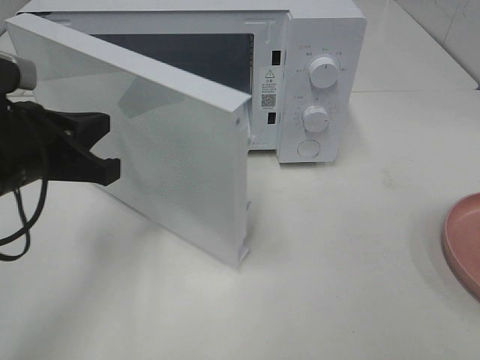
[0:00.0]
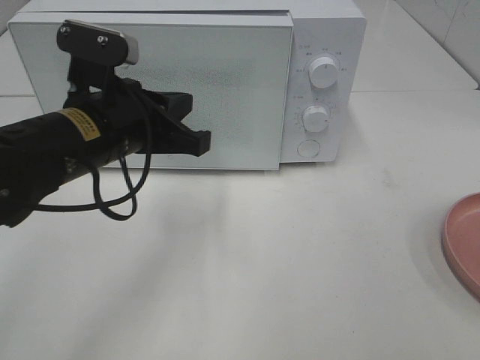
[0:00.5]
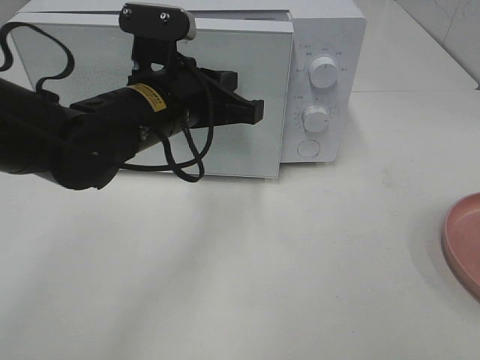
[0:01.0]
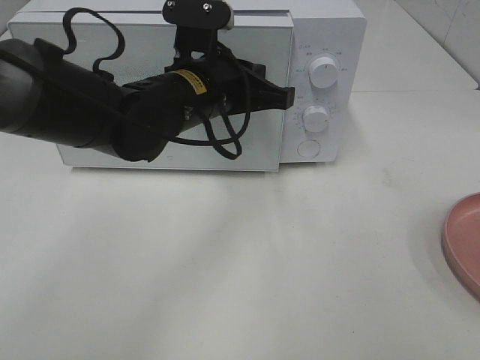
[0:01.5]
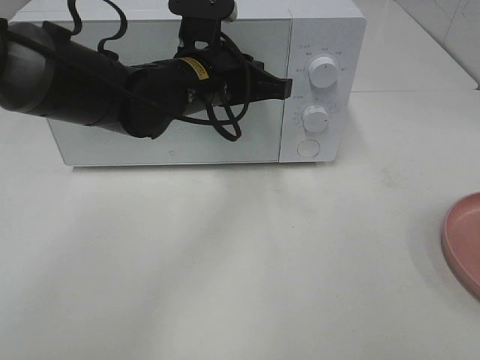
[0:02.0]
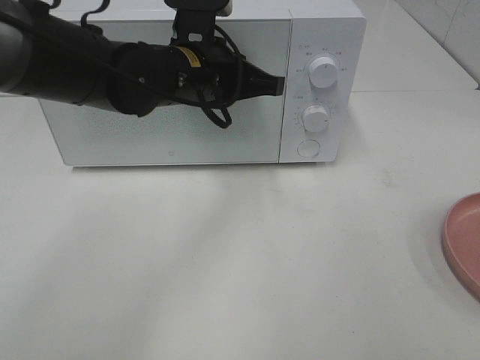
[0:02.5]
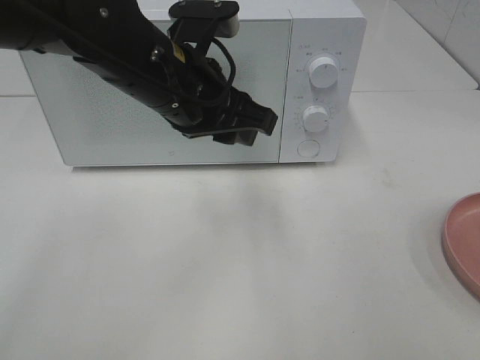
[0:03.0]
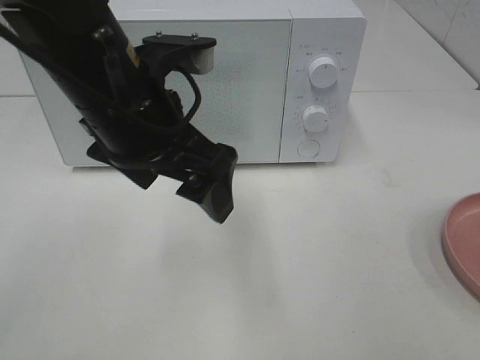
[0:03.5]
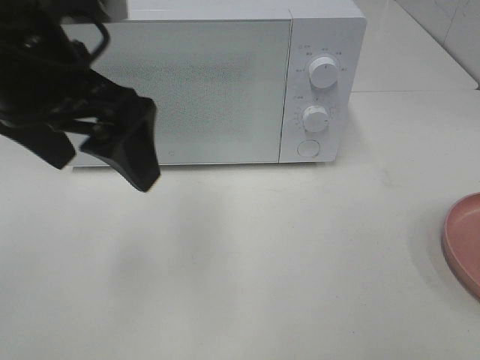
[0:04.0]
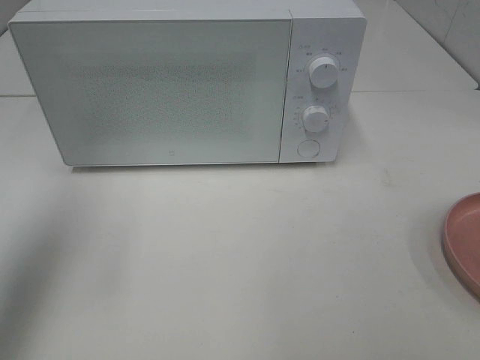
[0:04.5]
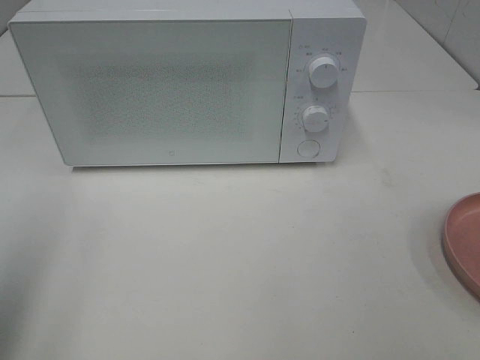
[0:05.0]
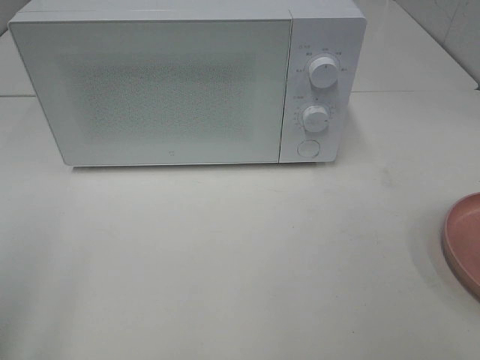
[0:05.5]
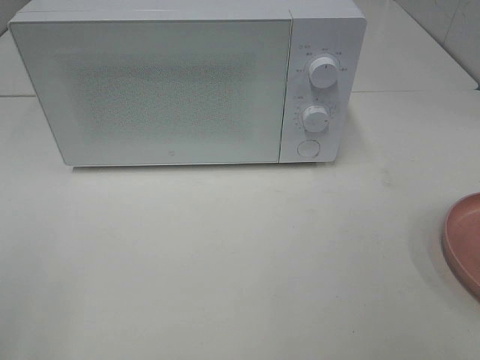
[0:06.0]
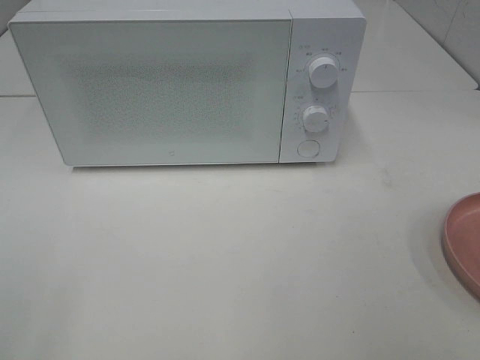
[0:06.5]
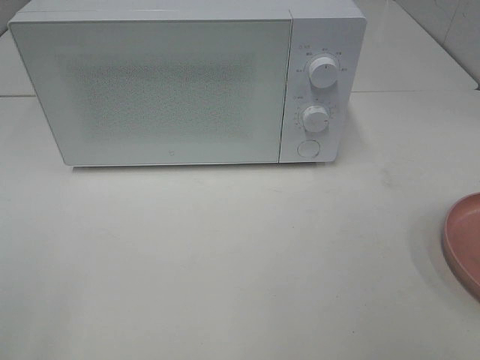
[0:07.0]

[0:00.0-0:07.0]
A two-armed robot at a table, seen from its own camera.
Task of the whole recording: Heat the burger.
Step, 0:00.0 to 0:02.5: Left hand: close the microwave door.
0:00.0 to 0:02.0: The left gripper travels to the right and forward by about 20 cm.
0:02.0 to 0:03.5: The left gripper goes approximately 15 cm backward and upward, and opens.
0:03.5 to 0:05.0: The left gripper heads to the left and backward, covering roughly 25 cm.
0:05.0 to 0:07.0: The left gripper heads backward, covering about 15 cm.

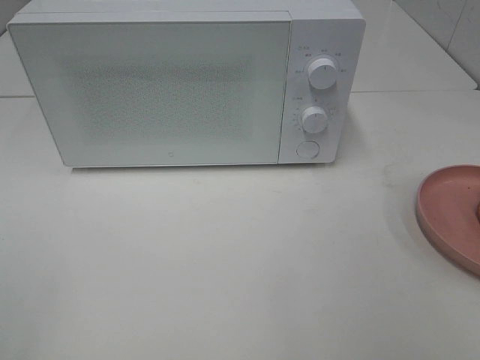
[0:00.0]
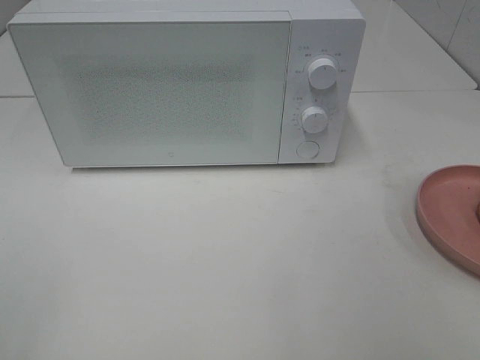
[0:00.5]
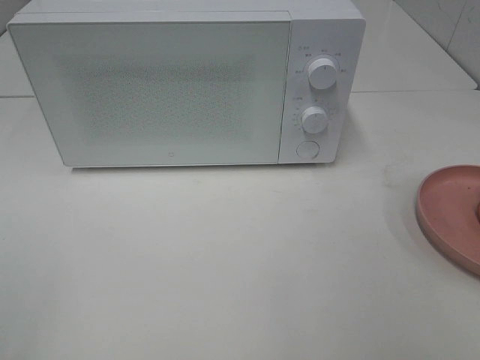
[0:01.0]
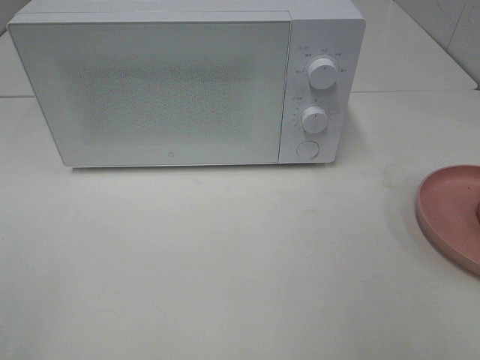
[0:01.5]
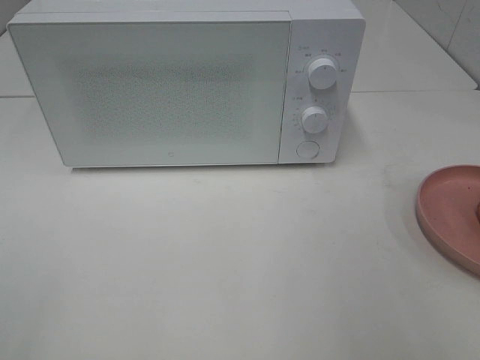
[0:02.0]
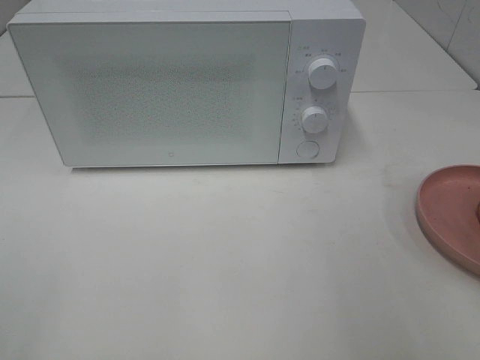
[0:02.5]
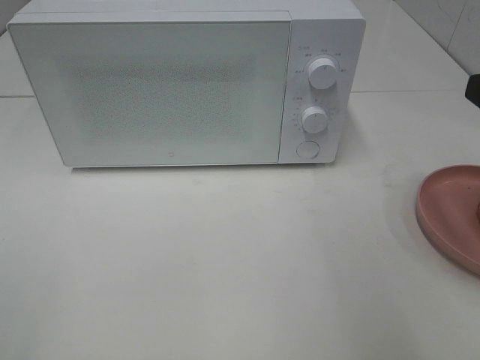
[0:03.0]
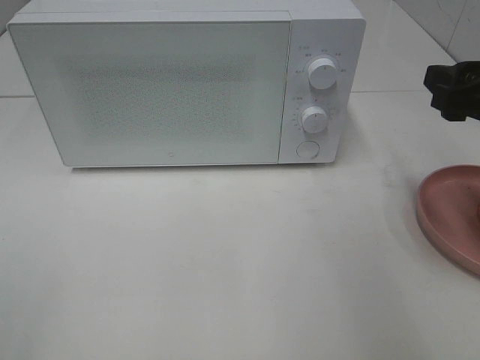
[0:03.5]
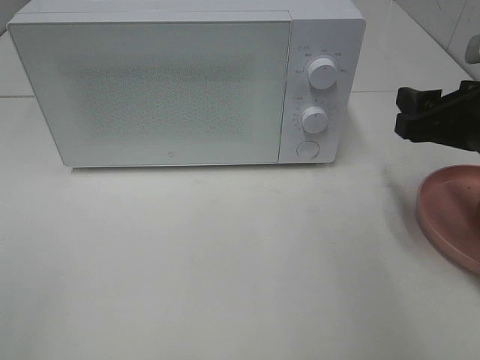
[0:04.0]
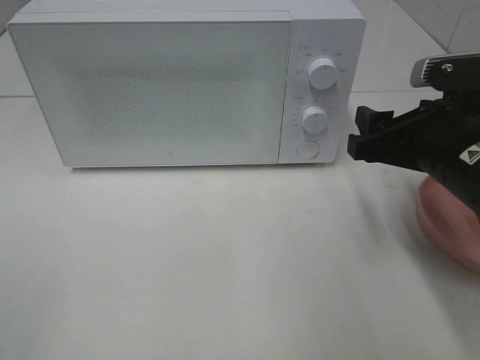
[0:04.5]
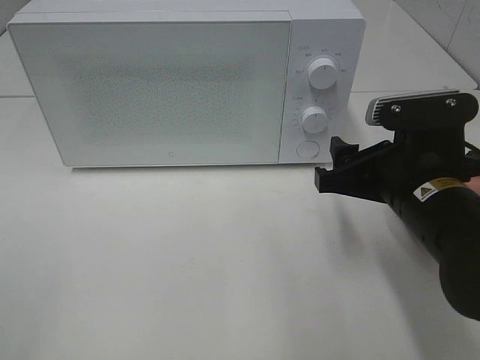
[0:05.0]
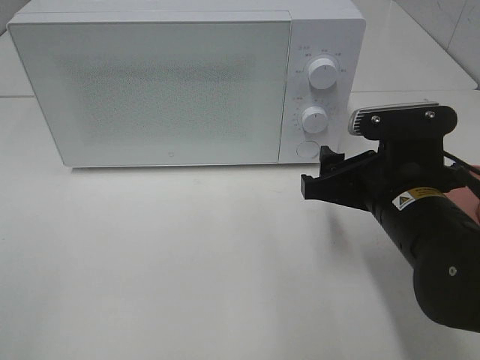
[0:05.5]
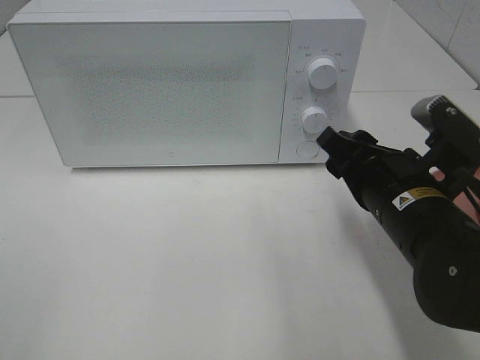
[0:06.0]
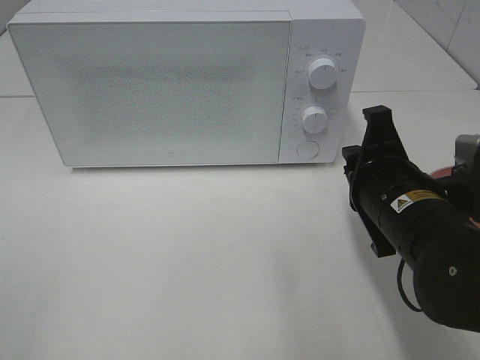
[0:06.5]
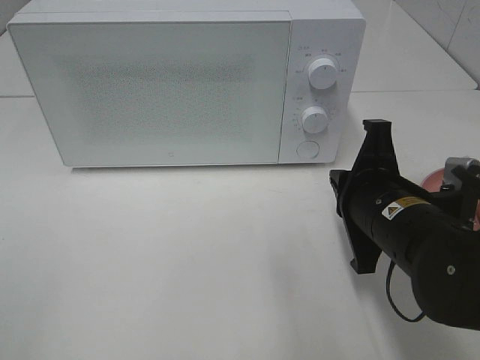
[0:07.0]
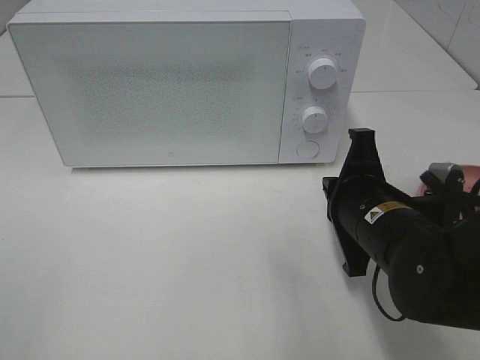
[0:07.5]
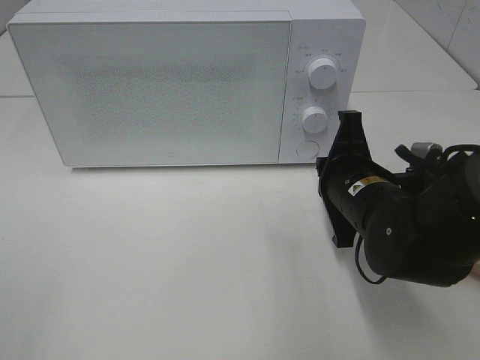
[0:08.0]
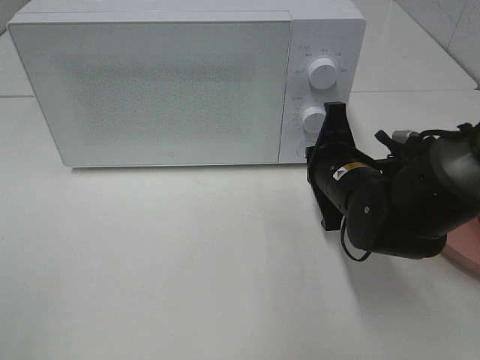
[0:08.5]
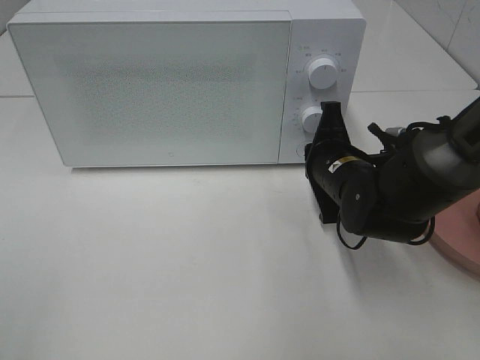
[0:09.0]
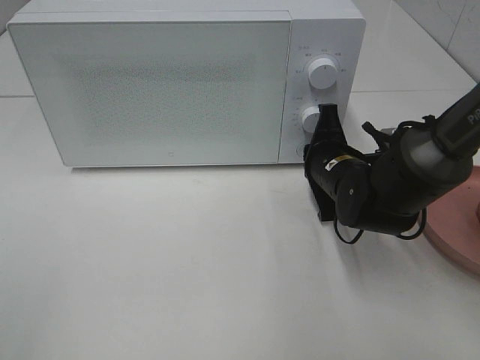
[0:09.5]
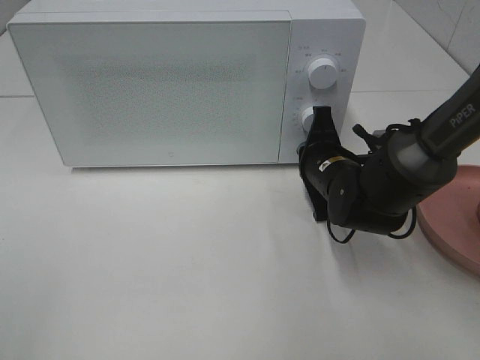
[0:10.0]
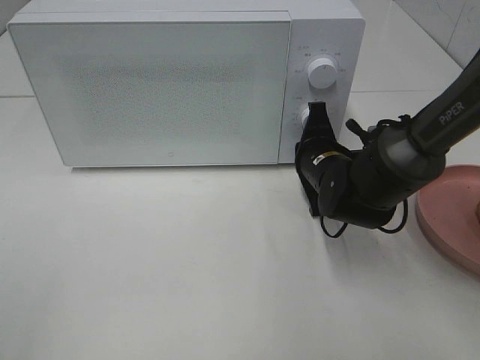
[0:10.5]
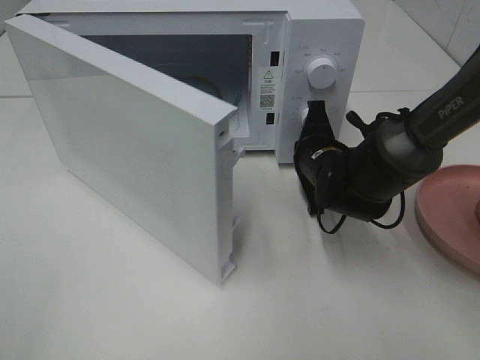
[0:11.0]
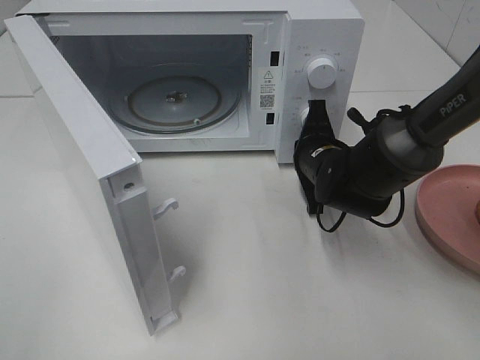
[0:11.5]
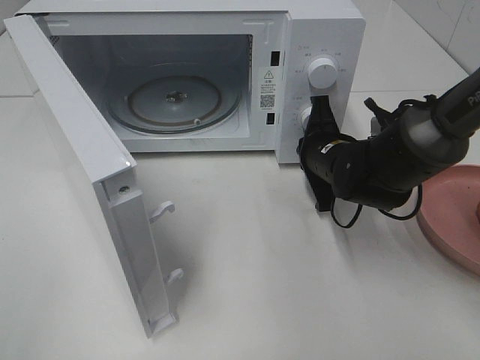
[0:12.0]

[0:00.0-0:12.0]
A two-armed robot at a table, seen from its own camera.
Task of the whole recording: Heat the burger.
0:02.0 to 0:04.0: The right gripper moves forward and downward, some 20 cm.
0:04.0 to 0:06.0: The right gripper goes approximately 10 cm to the left and downward.
0:06.0 to 0:08.0: The right gripper ends up roughly 5 cm from where it was, and closes.
0:08.0 to 0:10.0: The right gripper heads forward, covering about 10 cm.

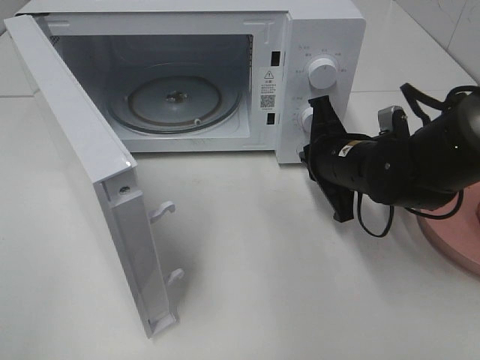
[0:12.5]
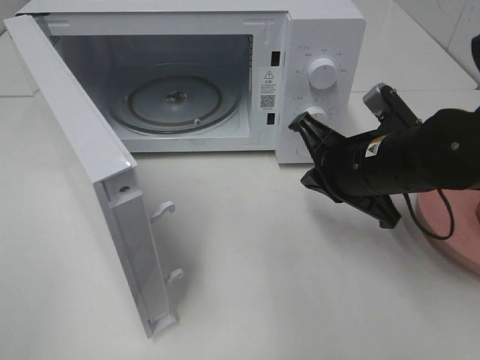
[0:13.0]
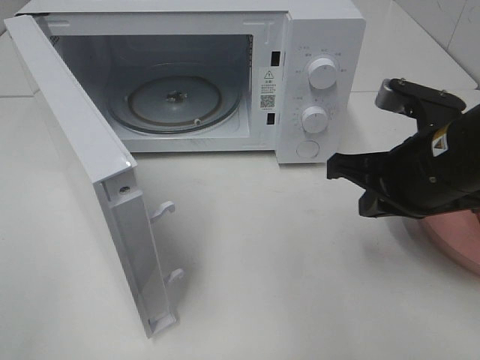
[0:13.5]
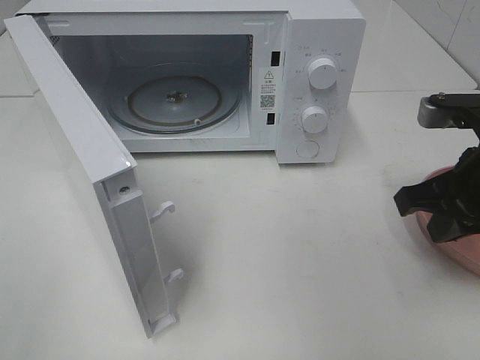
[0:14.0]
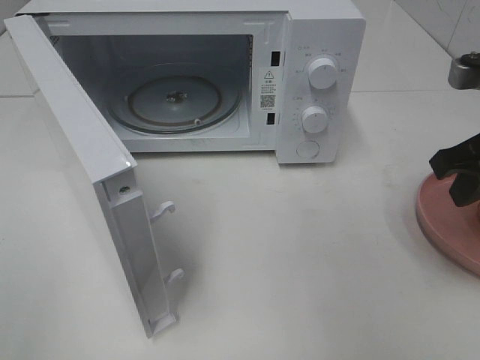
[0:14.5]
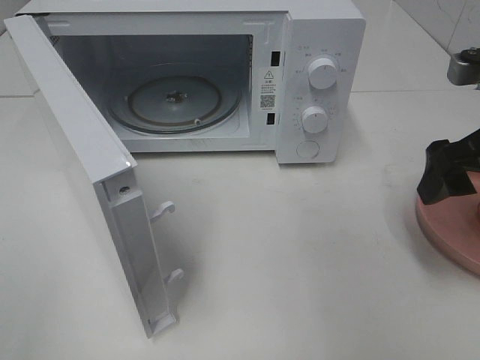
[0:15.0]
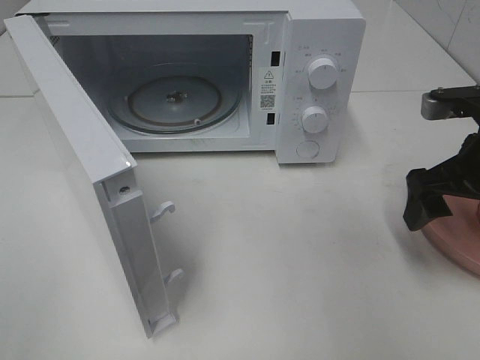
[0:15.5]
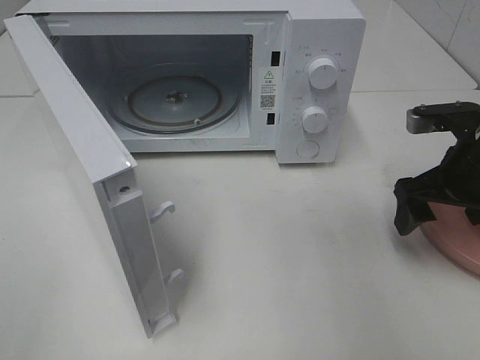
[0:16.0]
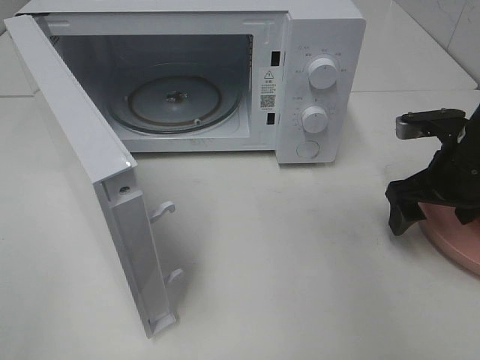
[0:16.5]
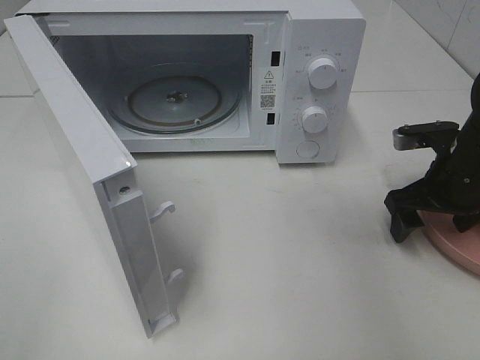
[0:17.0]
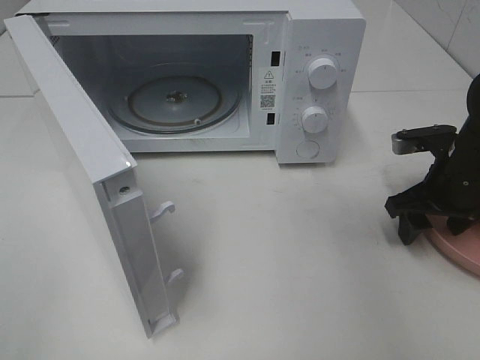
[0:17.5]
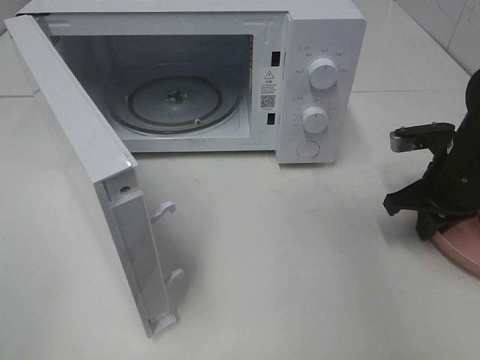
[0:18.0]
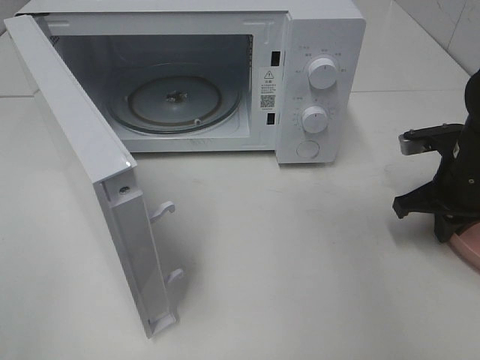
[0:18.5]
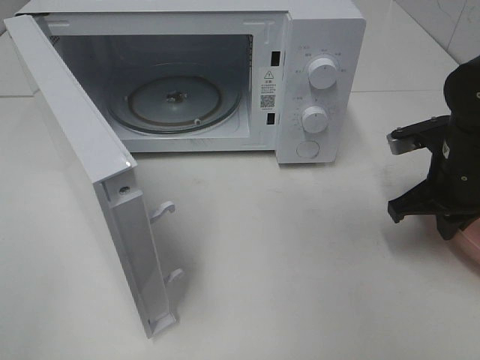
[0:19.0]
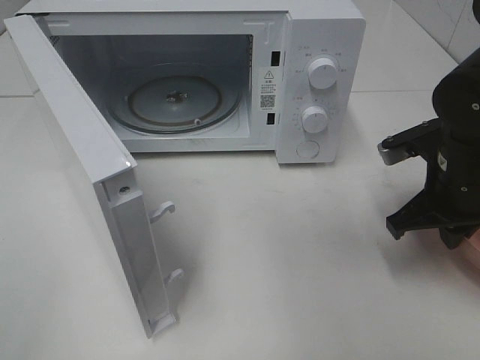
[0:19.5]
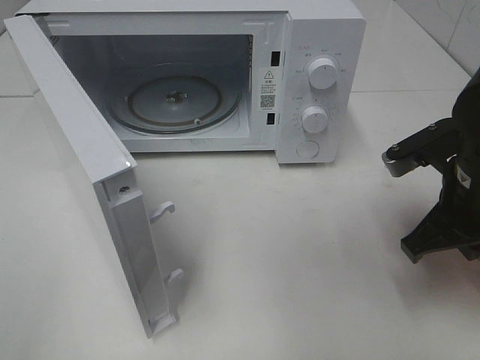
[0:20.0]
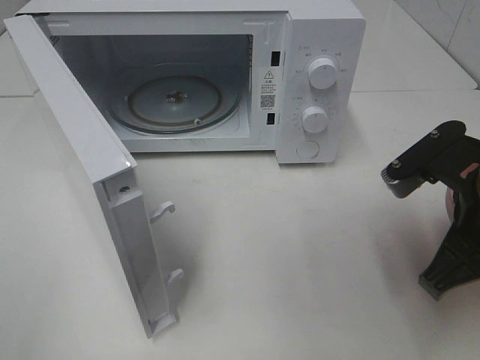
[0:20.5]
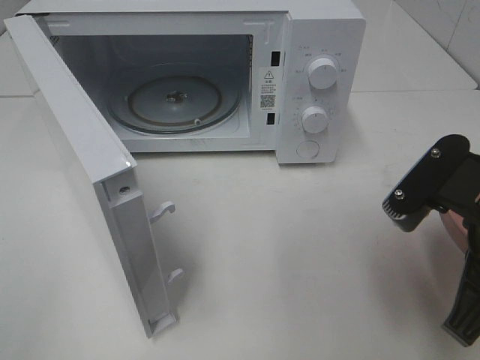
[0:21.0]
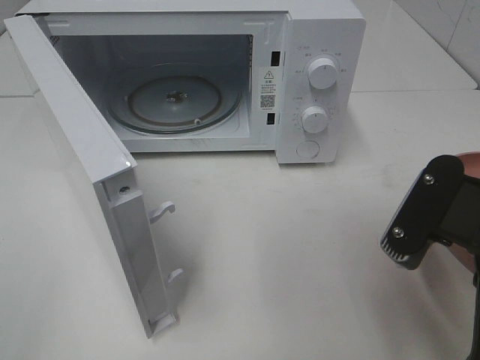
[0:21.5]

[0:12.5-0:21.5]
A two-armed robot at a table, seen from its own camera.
Task of the whole recording: Heat the burger.
Step, 0:12.5 to 0:18.0: Right hand: grab the plate with the hamburger.
0:12.5 to 0:14.5: The right gripper moves upward, to the right and backward, roughly 20 cm, and opens.
0:14.5 to 0:17.0: The right gripper moves downward and forward, about 15 cm, and opens its fingers.
0:17.0 to 0:19.5: The right gripper moves approximately 5 cm, and closes up.
0:19.5 to 0:21.5: The right gripper shifts approximately 15 cm backward and upward.
